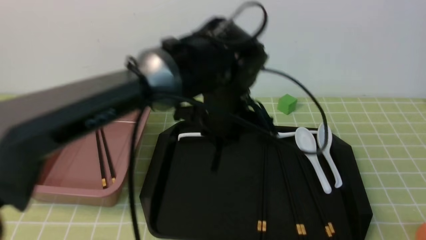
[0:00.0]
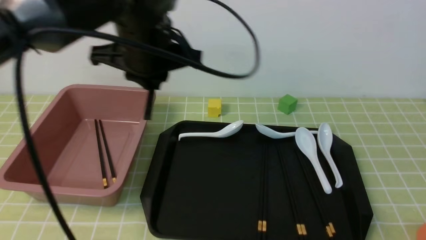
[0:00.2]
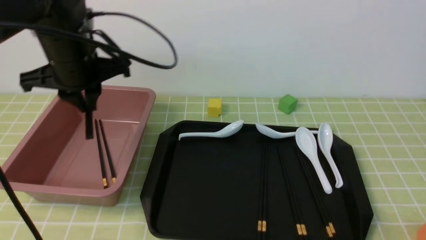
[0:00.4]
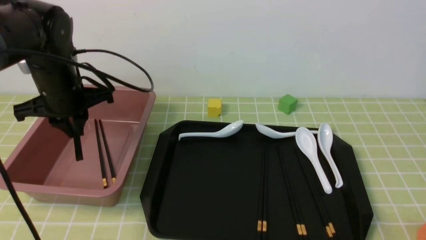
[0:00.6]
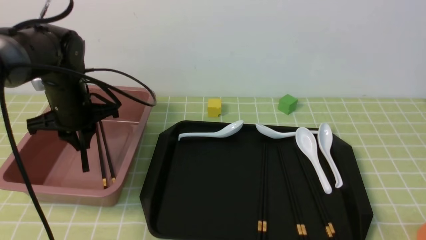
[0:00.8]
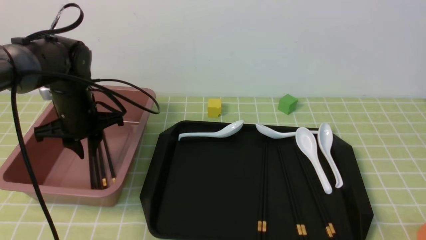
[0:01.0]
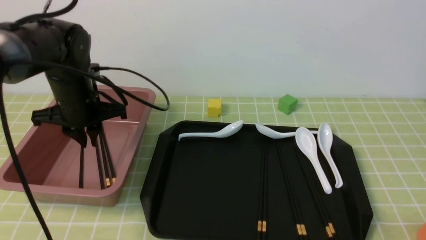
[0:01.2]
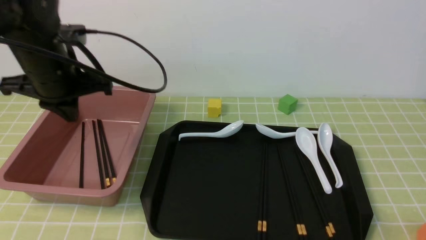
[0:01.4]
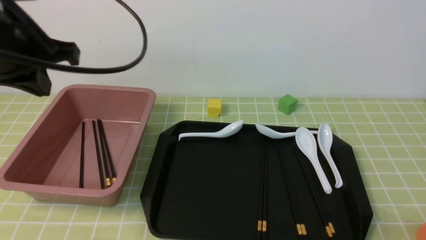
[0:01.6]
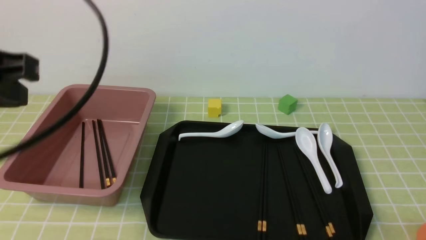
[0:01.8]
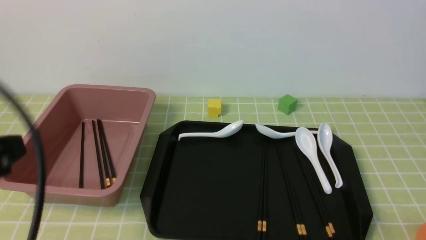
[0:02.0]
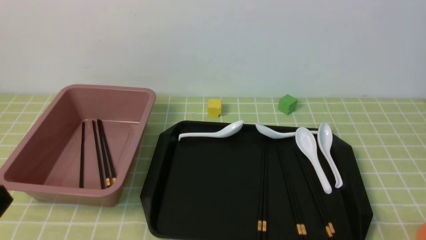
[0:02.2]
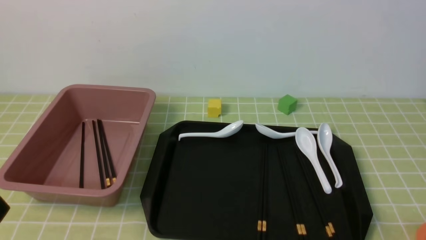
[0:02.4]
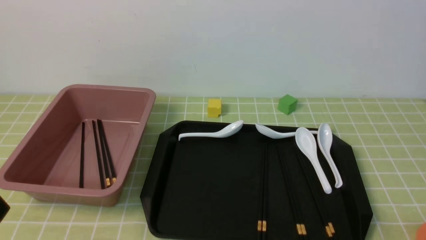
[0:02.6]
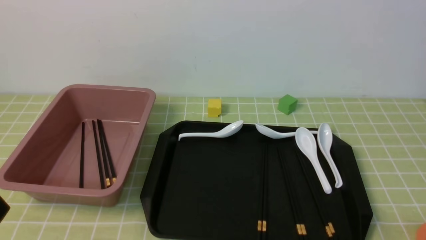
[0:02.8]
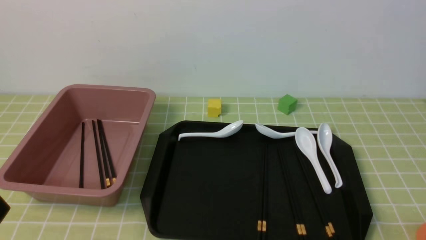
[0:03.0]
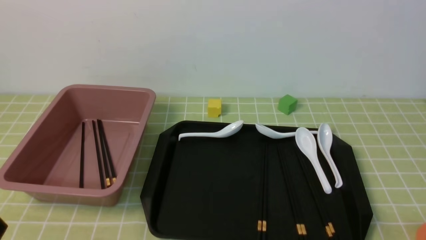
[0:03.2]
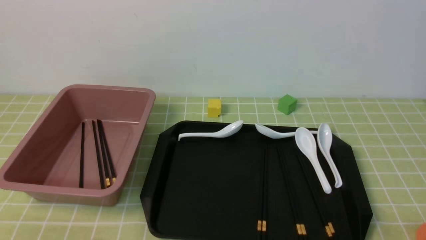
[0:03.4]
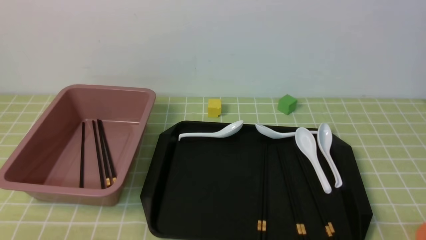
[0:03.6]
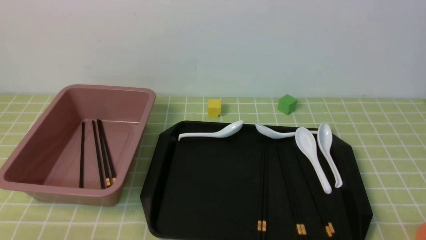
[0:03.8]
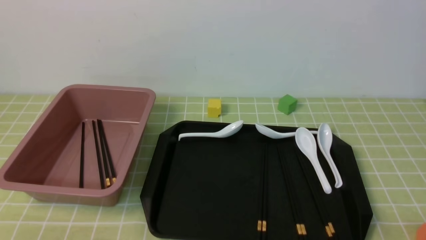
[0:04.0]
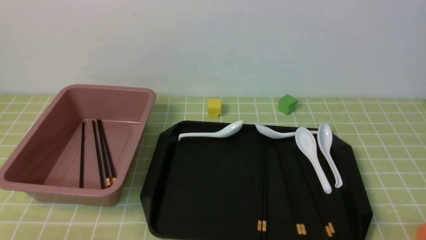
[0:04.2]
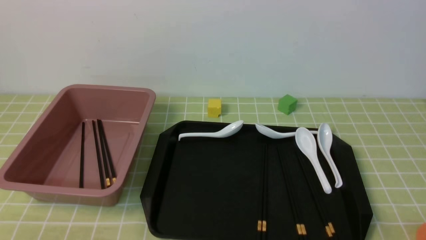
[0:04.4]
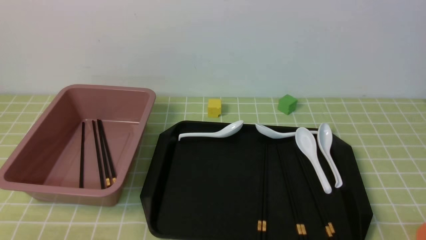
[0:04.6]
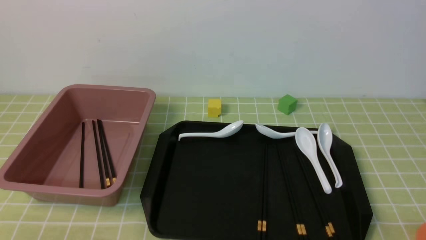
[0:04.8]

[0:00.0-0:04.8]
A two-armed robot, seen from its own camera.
Step, 0:00.2 to 0:01.4: use the left arm to put the chopsticks into the lunch box.
0:00.0 to 0:01.6: The left gripper goes approximately 25 cm to the left and upward.
0:01.6 to 0:03.2: The left gripper moves backward and downward, approximately 25 cm.

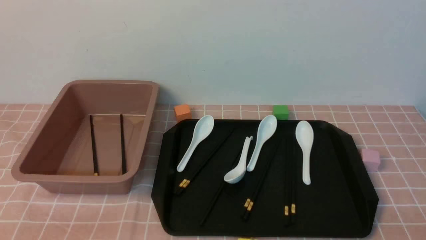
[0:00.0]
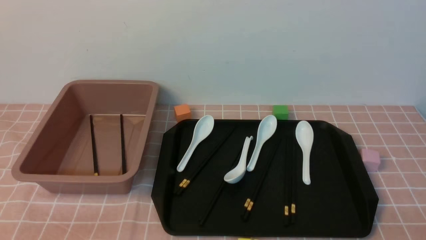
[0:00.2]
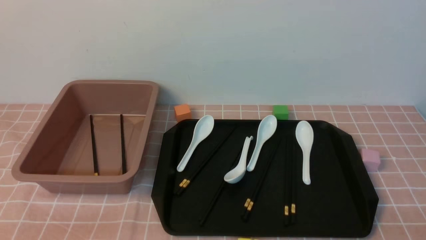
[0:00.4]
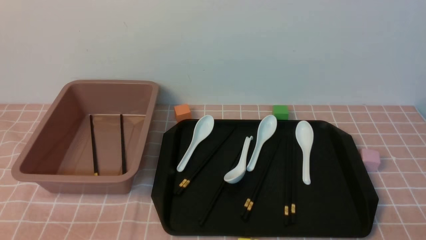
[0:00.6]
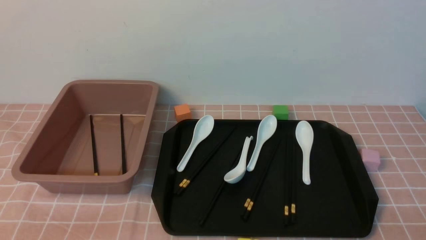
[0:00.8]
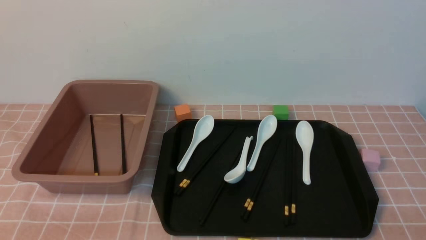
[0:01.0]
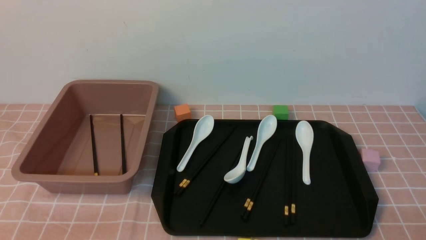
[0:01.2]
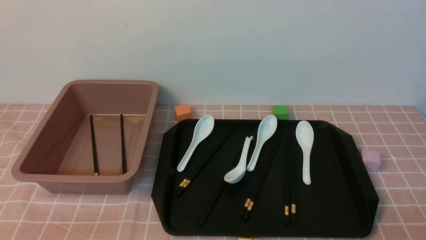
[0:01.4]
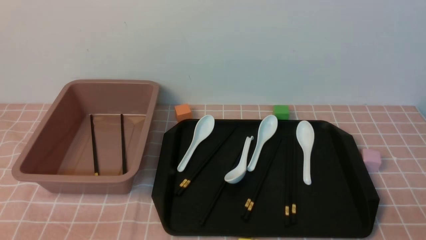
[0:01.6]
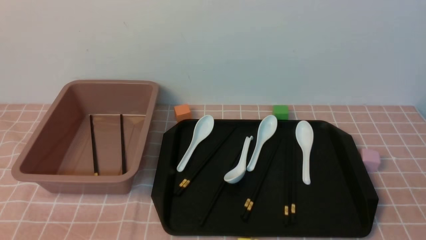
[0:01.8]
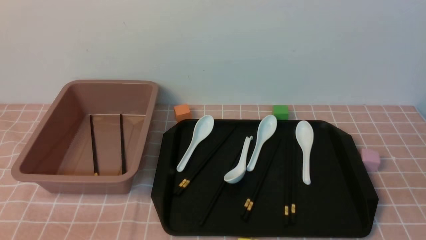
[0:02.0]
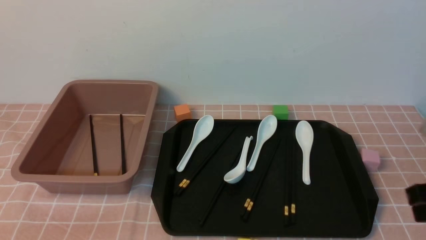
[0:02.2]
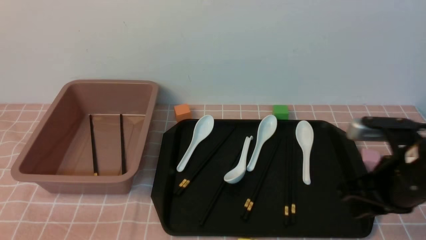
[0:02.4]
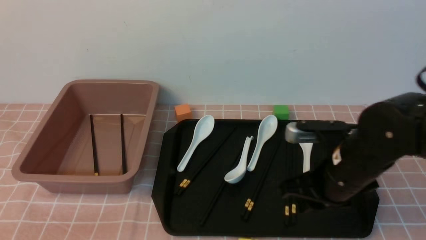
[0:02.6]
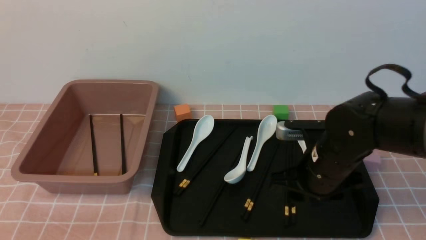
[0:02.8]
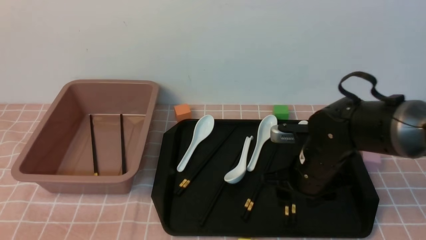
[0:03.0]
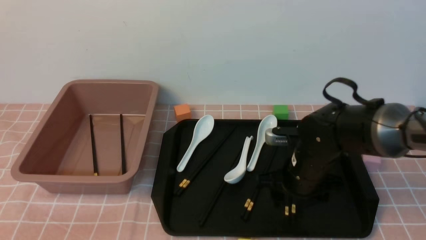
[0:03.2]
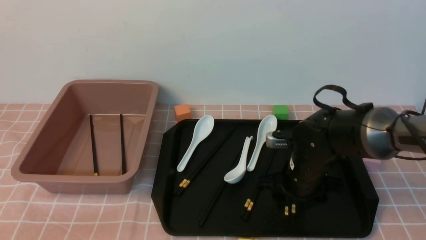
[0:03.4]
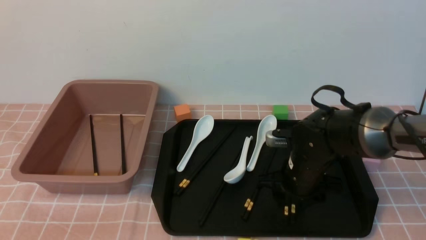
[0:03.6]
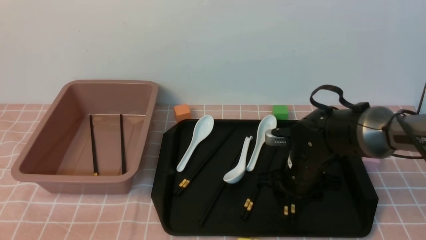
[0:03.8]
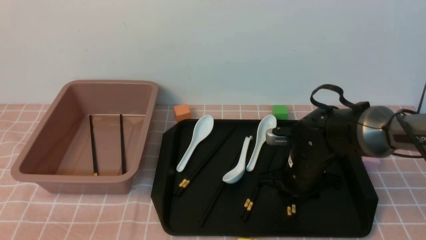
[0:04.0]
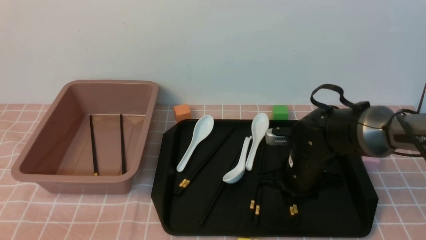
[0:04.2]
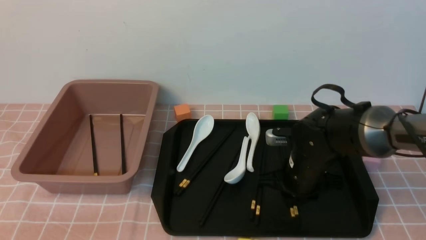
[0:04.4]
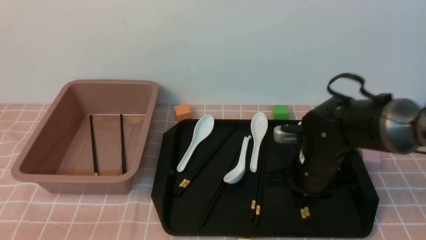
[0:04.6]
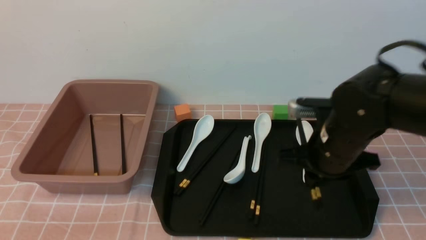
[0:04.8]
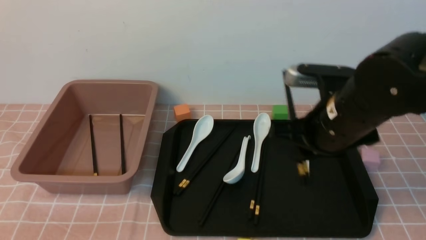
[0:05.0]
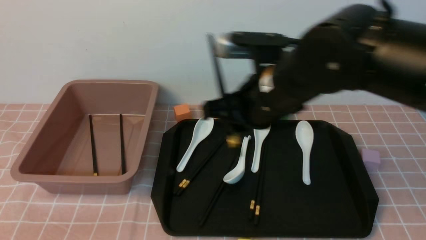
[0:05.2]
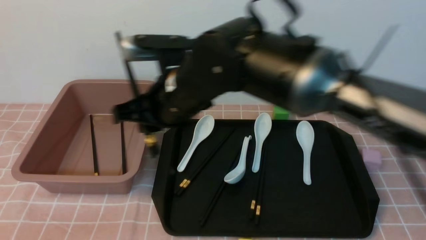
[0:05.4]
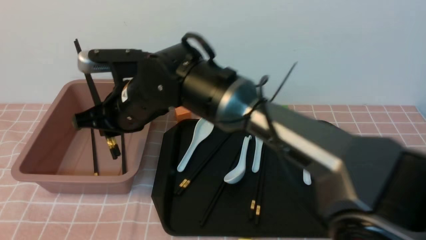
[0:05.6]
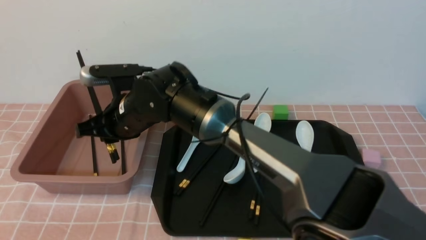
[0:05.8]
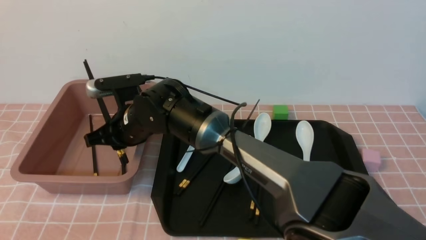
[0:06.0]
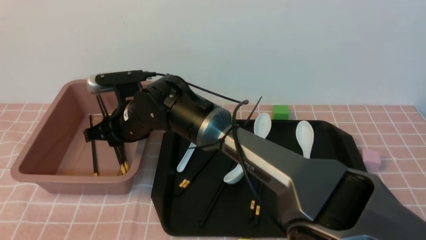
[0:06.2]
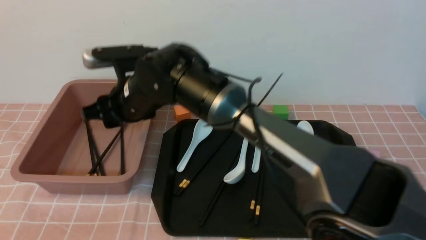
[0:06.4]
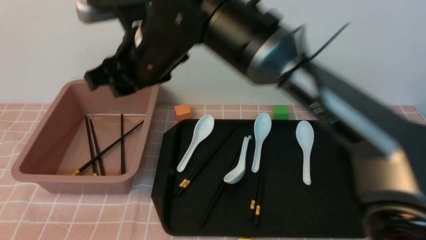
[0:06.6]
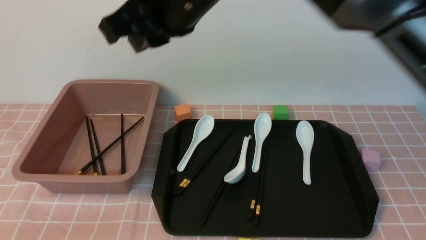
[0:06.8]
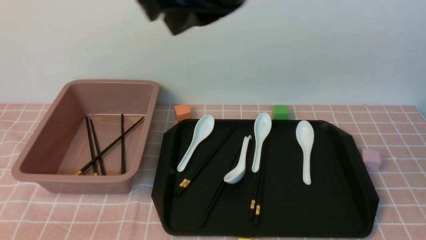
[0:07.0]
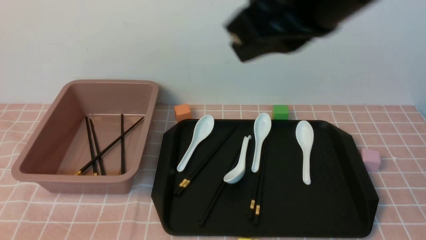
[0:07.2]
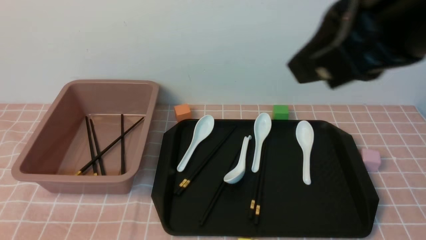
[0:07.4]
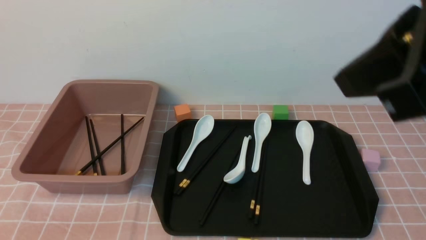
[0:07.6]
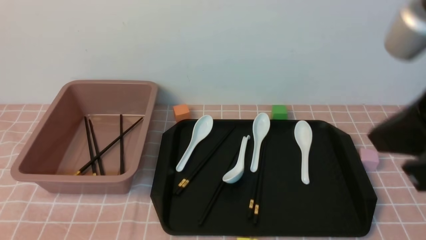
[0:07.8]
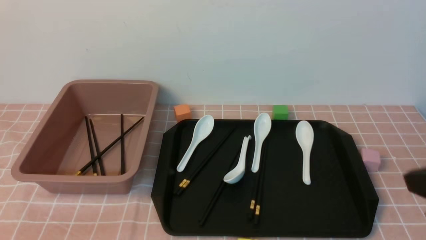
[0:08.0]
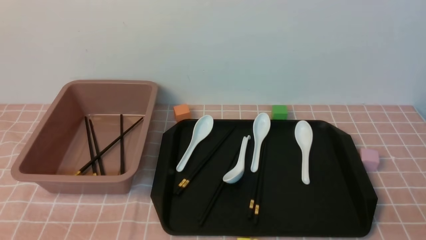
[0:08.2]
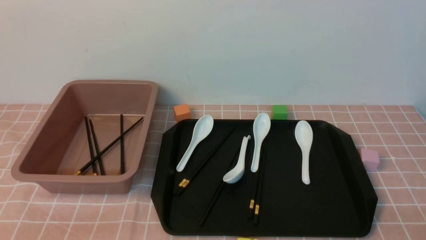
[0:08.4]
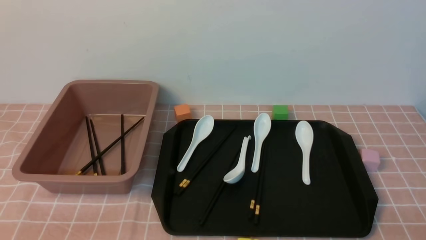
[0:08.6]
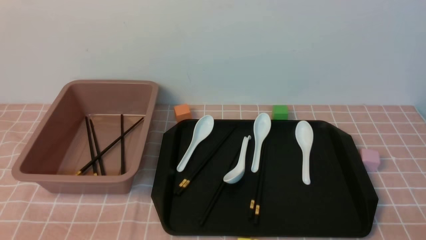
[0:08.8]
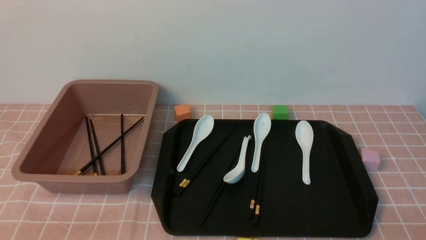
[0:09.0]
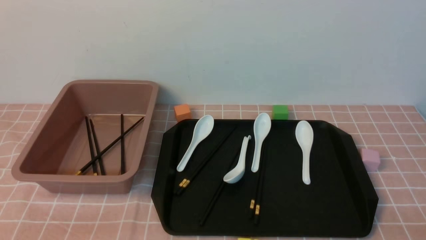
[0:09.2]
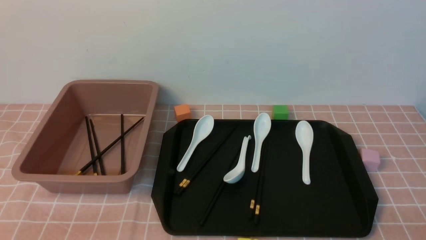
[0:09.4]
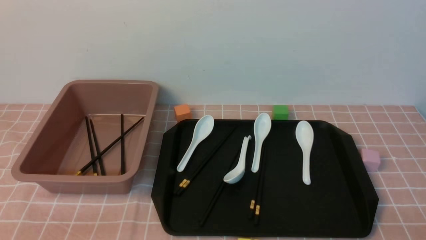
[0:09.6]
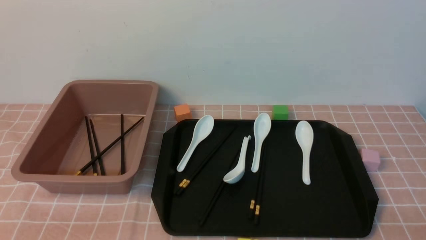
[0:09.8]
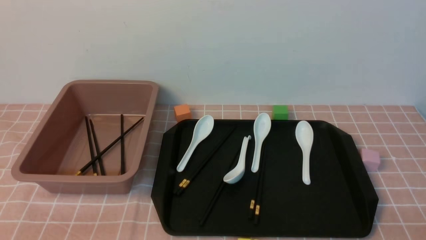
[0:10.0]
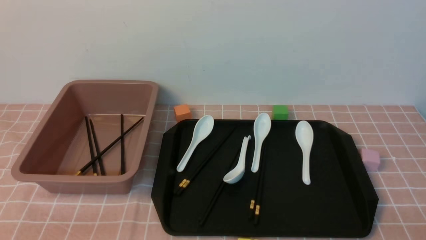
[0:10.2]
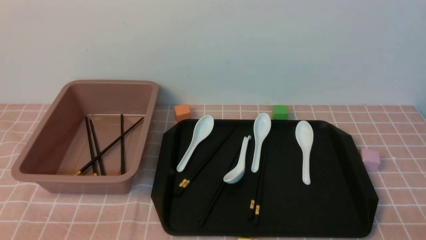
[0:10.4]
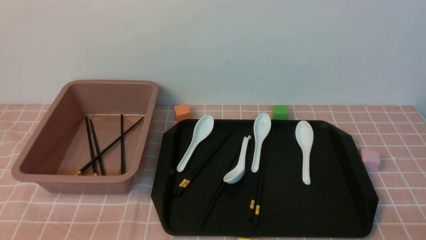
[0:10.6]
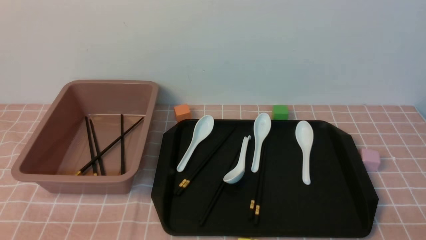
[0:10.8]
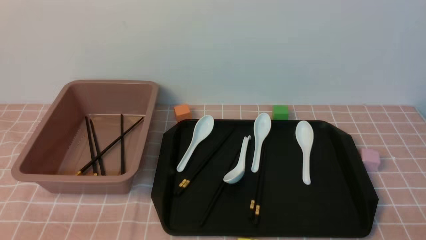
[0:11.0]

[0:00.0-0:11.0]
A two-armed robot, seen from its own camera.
Step, 0:00.0 to 0:04.8: use the right arm to grab a pair of chopsticks.
Step, 0:05.0 to 0:06.4: use the right arm to put the chopsticks into the lunch box.
0:00.0 to 0:01.6: The right gripper heads upward, covering roughly 5 cm.
0:01.6 to 0:03.2: The right gripper moves forward and to the left, about 30 cm, and opens its fingers.
0:03.2 to 0:04.8: The right gripper goes about 10 cm upward, and closes its fingers.
0:04.8 to 0:06.2: The right gripper is displaced to the left by approximately 25 cm.
0:06.2 to 0:07.8: The right gripper heads to the right, backward and upward, covering roughly 40 cm, and closes its fingers.
0:07.8 to 0:09.4: The right gripper is displaced downward and to the right by some 25 cm.
0:09.4 to 0:11.0: Both grippers stay about where they are.
